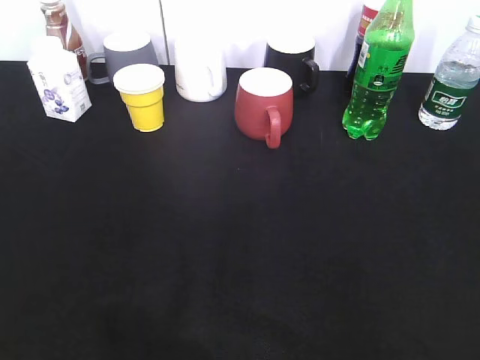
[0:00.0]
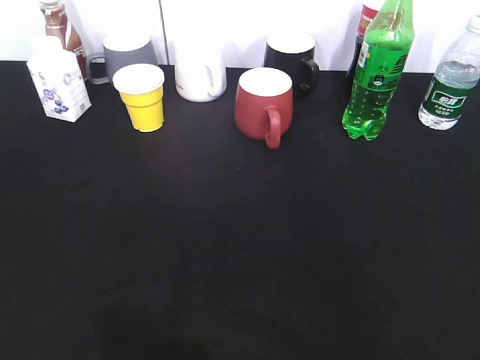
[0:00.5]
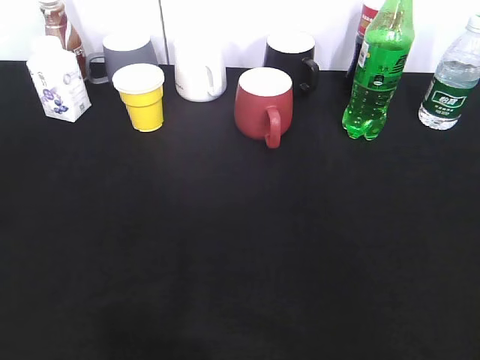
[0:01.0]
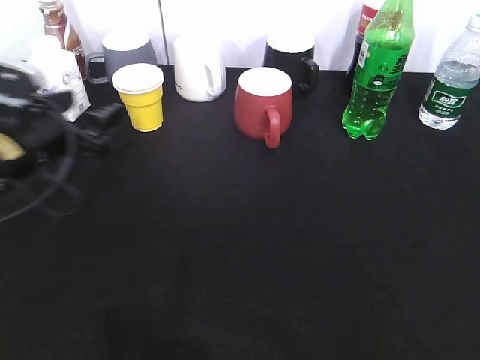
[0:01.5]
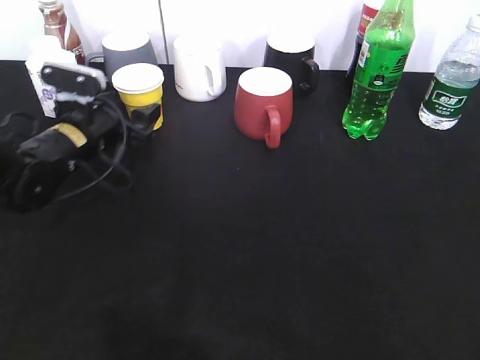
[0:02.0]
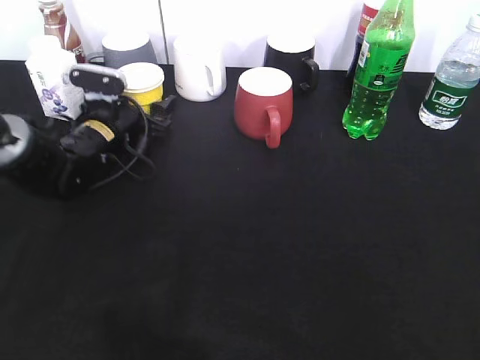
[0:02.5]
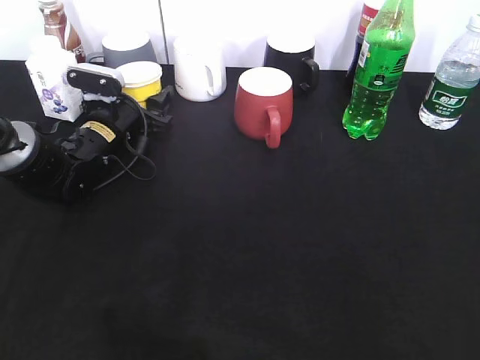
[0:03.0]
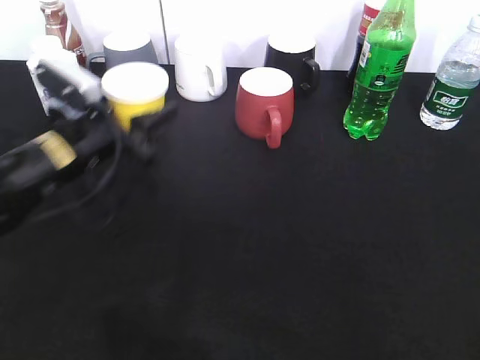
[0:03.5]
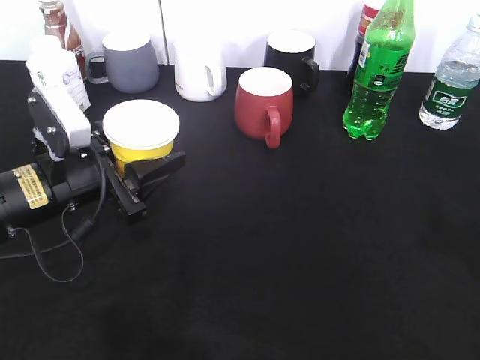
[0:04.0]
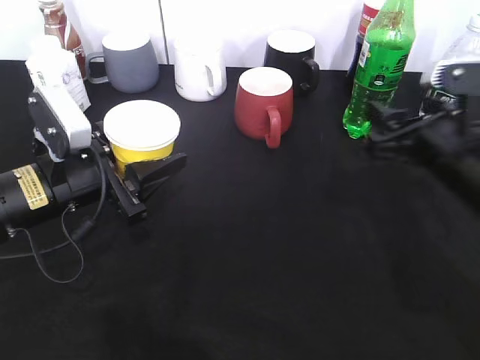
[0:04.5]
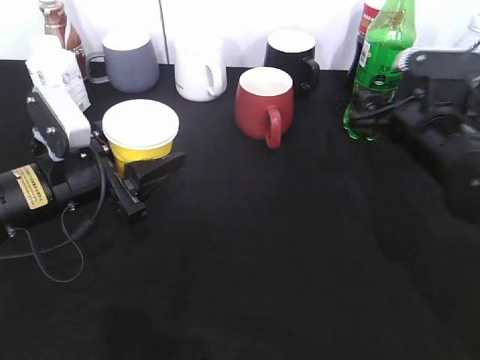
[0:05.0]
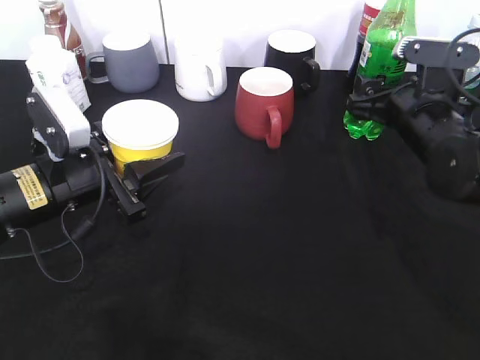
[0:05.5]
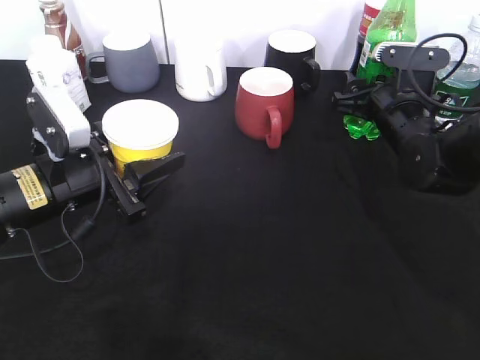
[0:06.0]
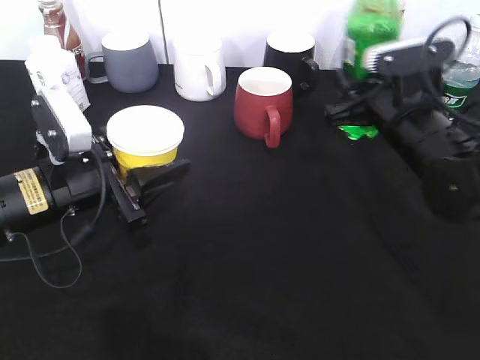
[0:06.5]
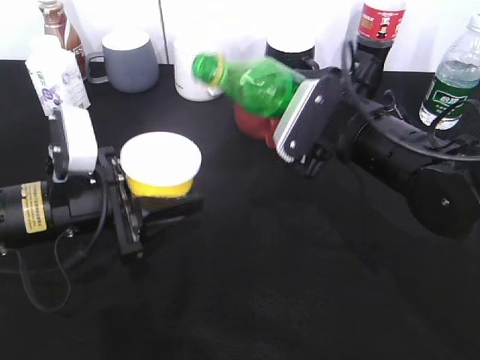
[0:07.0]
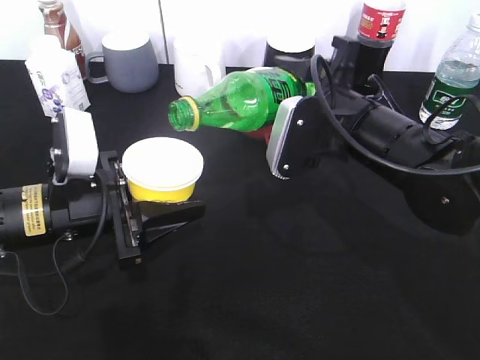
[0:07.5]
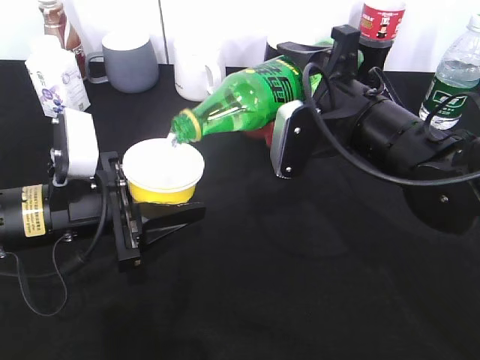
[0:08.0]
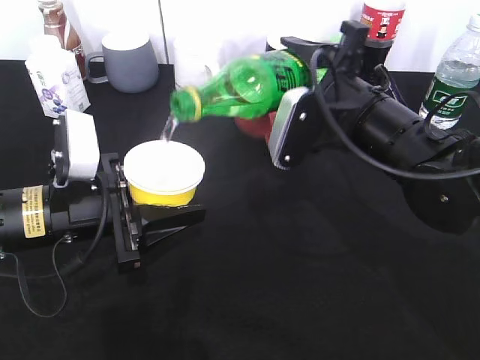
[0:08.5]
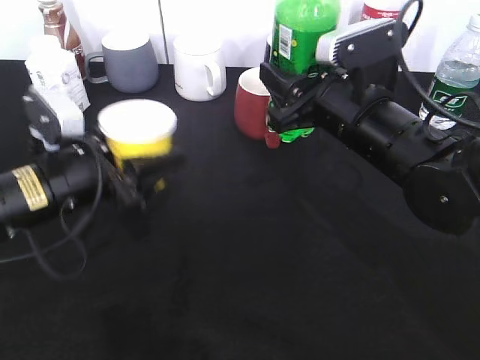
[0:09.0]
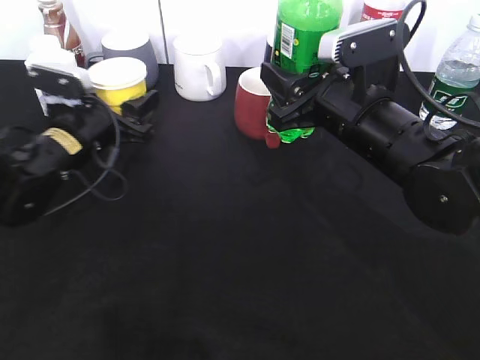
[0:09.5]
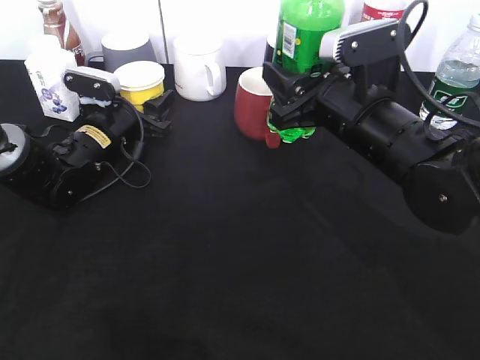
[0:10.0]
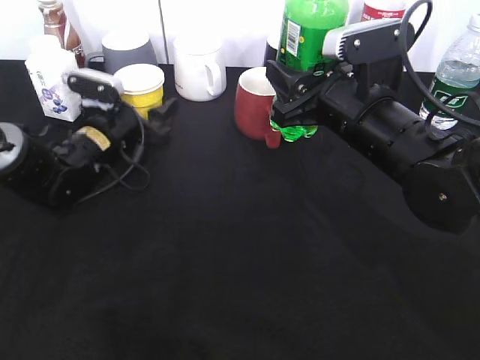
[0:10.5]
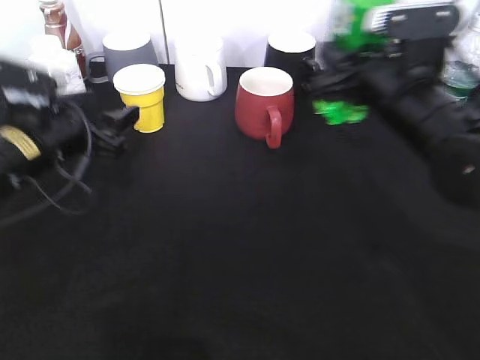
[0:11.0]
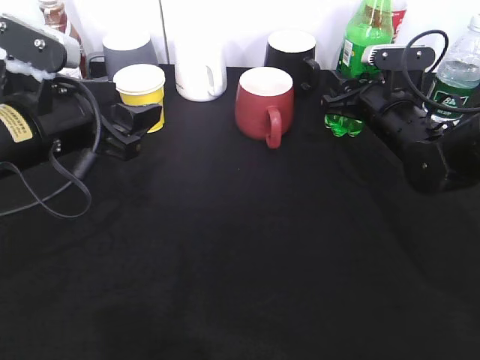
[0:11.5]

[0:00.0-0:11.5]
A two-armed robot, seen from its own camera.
Step, 0:00.0 to 0:03.0: Grasp the yellow paper cup with left gripper.
Step, 0:03.5 to 0:04.0: Lift the yellow paper cup with left gripper.
Step, 0:04.5 to 0:06.0: Grasp the bottle with sprite with right gripper.
Step, 0:06.5 to 0:08.5: Pour the sprite from bottle to cup with right gripper.
0:00.0 to 0:02.0: The left gripper heads forward and downward, covering roughly 40 cm, and closes and opens again.
0:02.0 to 0:04.0: The right gripper shifts roughly 15 cm forward. Meanwhile the left gripper goes about 10 cm backward, and closes.
0:04.0 to 0:06.0: The right gripper heads forward, downward and to the left, covering approximately 30 cm, and opens, then closes once more.
0:06.0 to 0:07.5: The right gripper moves backward, to the left and upward, about 15 cm, and closes up.
0:07.5 to 0:09.5: The left gripper travels forward by some 10 cm.
0:09.5 to 0:11.5: The right gripper goes approximately 15 cm forward, to the right and downward, while the left gripper shifts some 15 cm backward and upward, and opens its fingers.

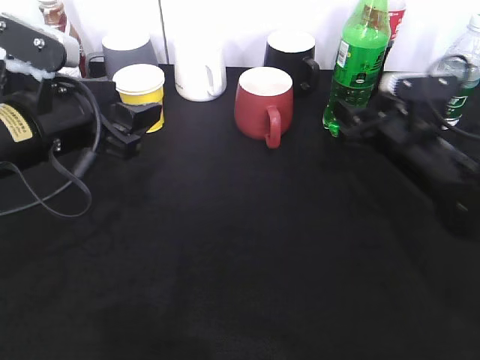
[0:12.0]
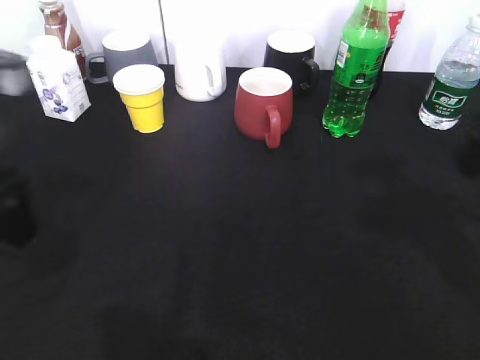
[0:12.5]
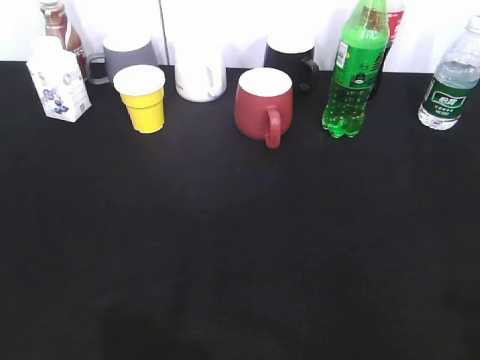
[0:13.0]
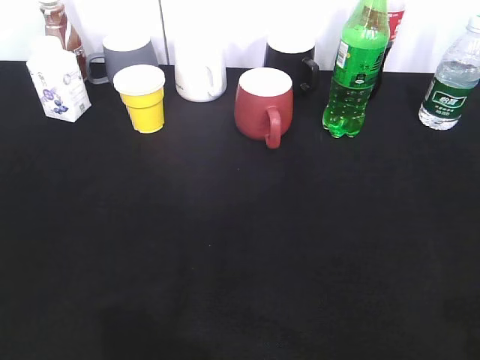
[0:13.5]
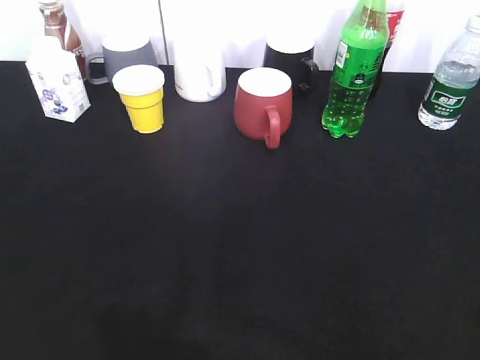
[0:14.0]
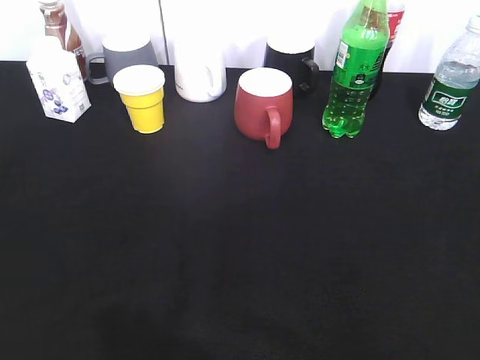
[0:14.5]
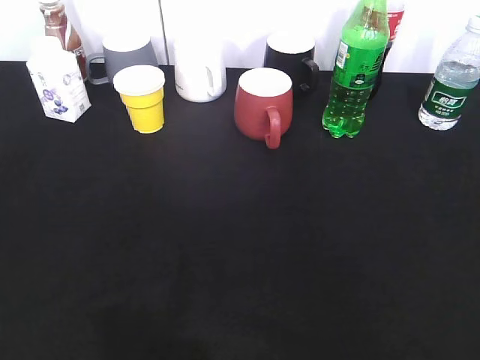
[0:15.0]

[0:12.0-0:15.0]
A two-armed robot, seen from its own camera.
0:12.0 to 0:13.5: The right gripper moves backward and upward, some 35 cm; the left gripper heads backward and to the left, covering about 25 cm.

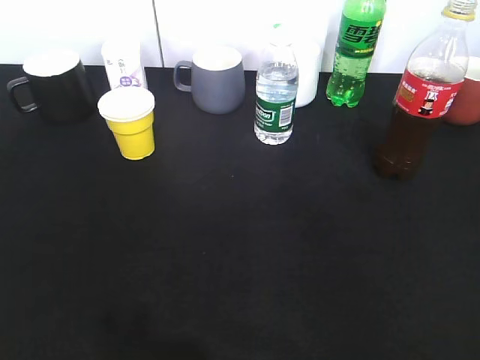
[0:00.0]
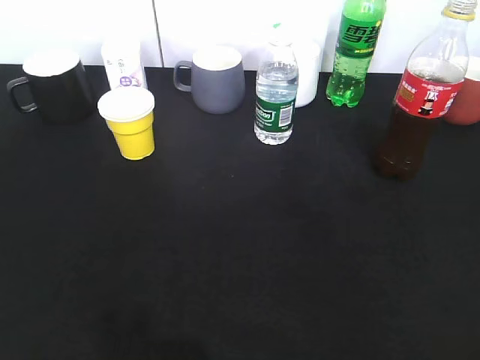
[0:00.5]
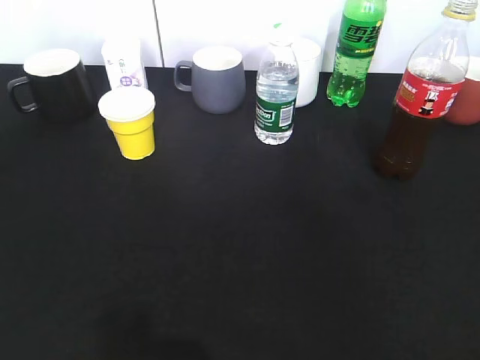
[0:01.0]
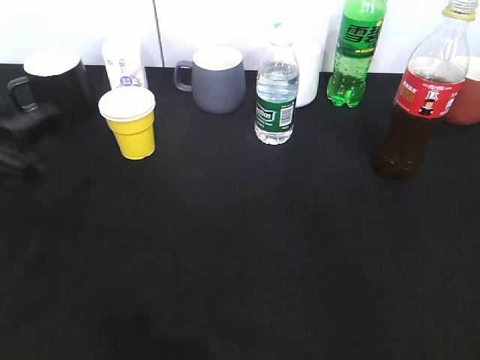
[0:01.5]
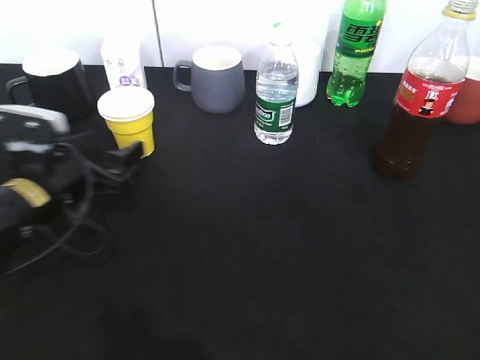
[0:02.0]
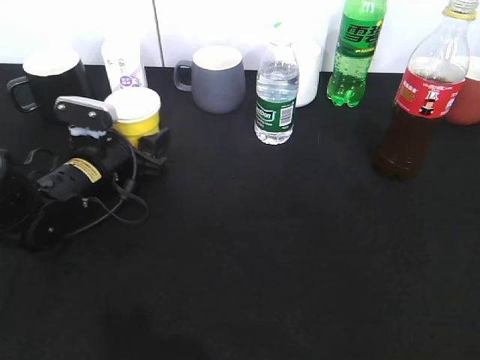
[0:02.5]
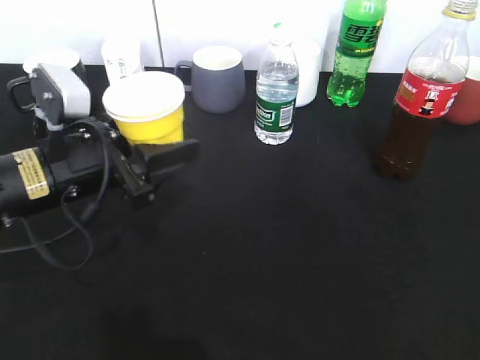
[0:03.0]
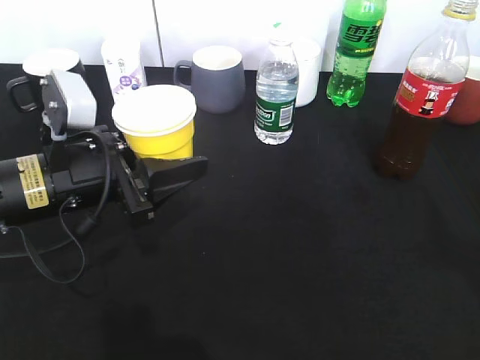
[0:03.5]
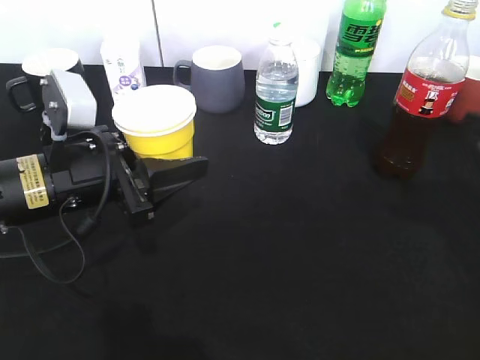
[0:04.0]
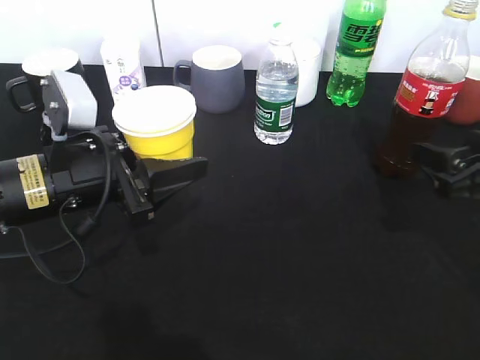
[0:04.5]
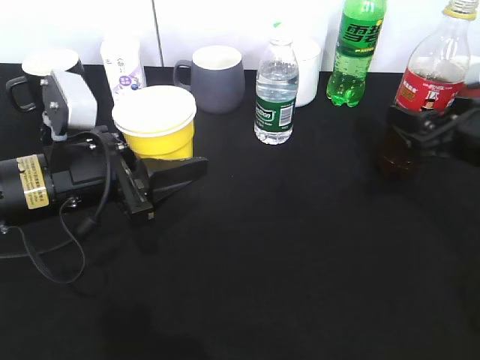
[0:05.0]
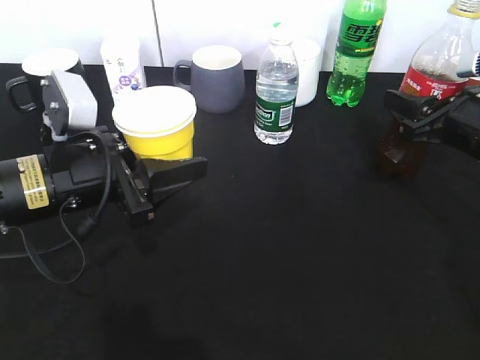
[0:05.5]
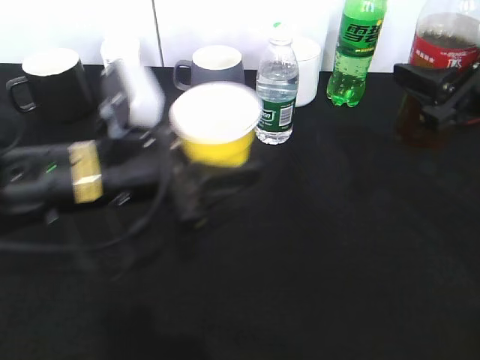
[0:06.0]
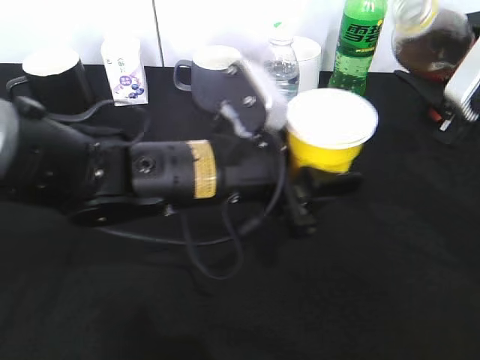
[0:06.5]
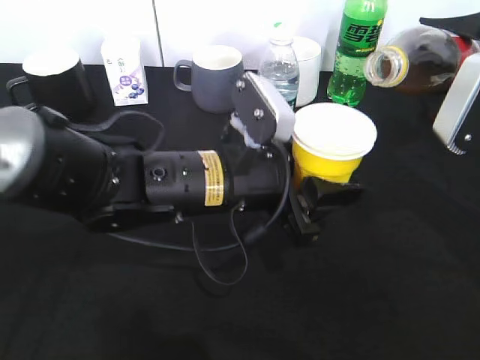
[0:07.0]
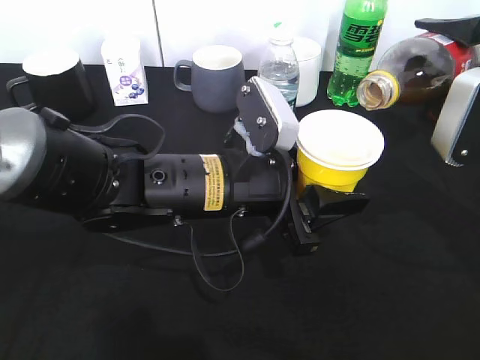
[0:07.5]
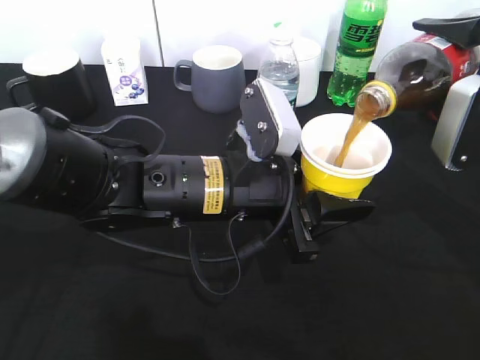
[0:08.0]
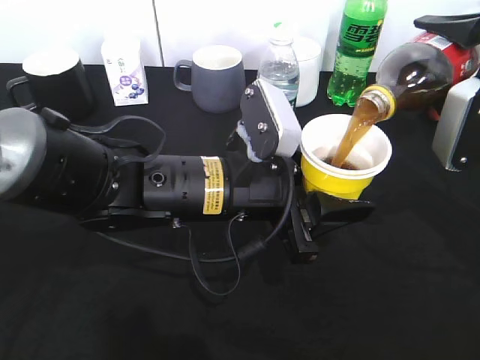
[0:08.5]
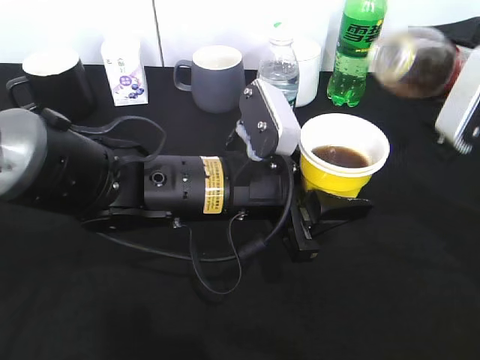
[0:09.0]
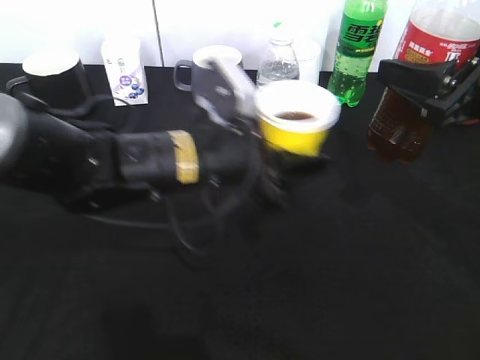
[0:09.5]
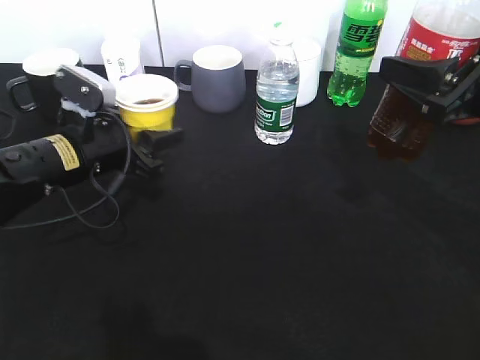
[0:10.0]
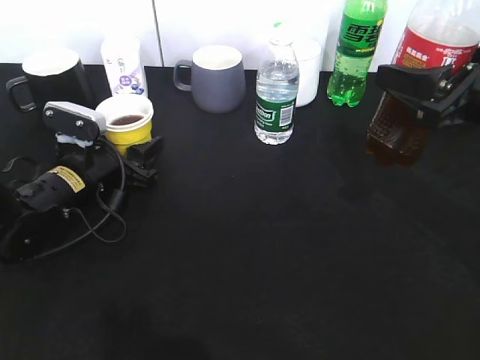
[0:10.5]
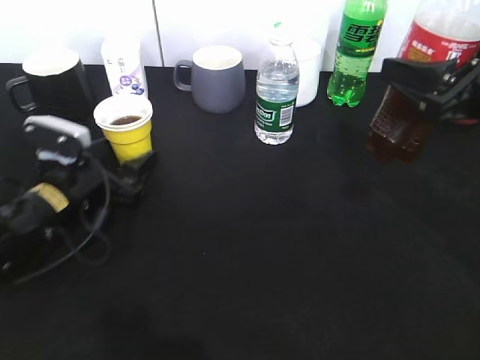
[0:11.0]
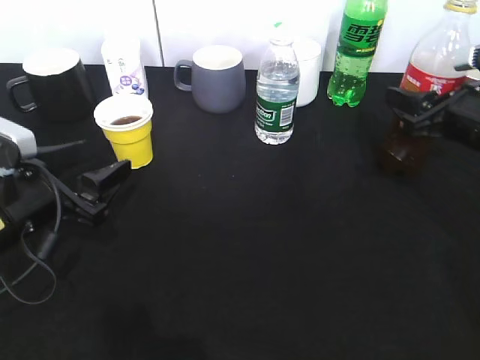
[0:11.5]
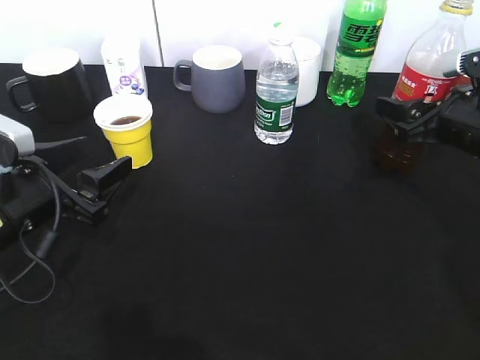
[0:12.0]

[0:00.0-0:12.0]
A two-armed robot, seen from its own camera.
Step, 0:00.0 to 0:02.5: Grasp the yellow paper cup with left gripper.
Step, 0:03.5 to 0:05.5: Grasp the bottle with cola with right gripper.
Step, 0:09.0 to 0:11.0: Place the yellow paper cup on the table with left gripper.
0:00.0 to 0:02.0: The left gripper shifts some 35 cm forward, downward and to the right, and opens its fingers.
0:02.0 to 0:04.0: The left gripper travels upward by roughly 5 cm, and closes. Meanwhile the right gripper is displaced forward by some 20 cm.
0:04.0 to 0:06.0: The right gripper moves forward, approximately 5 cm, and closes its fingers, while the left gripper moves to the right, roughly 5 cm.
0:06.0 to 0:08.0: The left gripper shifts about 10 cm to the right.
0:08.0 to 0:10.0: The left gripper heads to the left and forward, covering approximately 20 cm.
0:10.0 to 0:12.0: The left gripper shifts approximately 10 cm backward, and opens its fingers. Meanwhile the right gripper heads downward and forward, covering roughly 10 cm, and opens.
